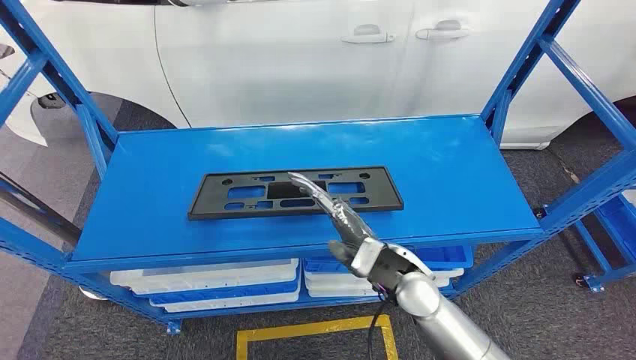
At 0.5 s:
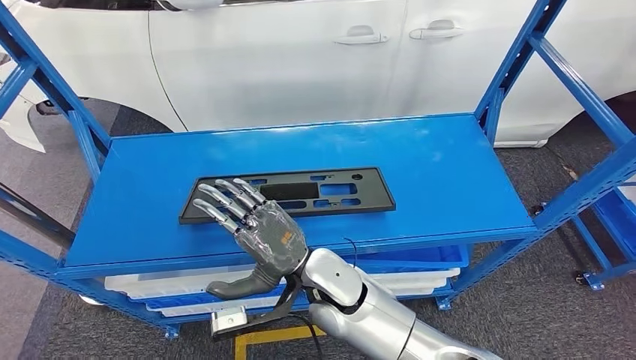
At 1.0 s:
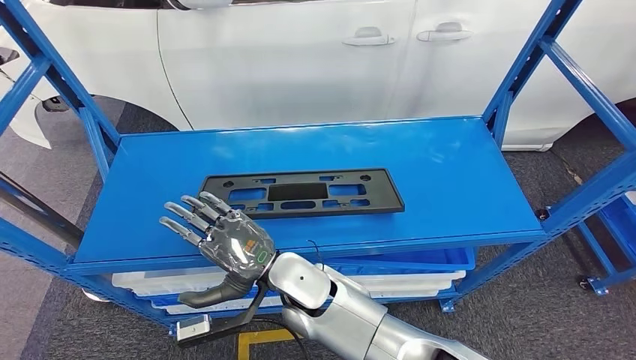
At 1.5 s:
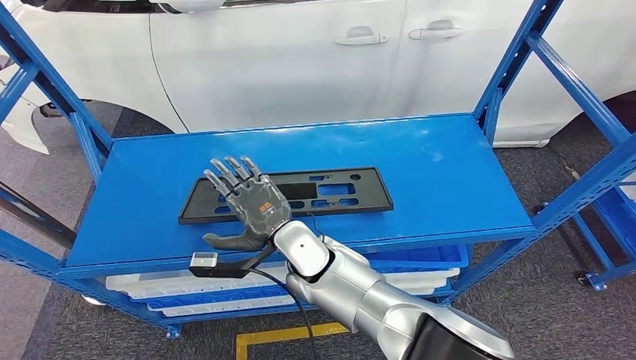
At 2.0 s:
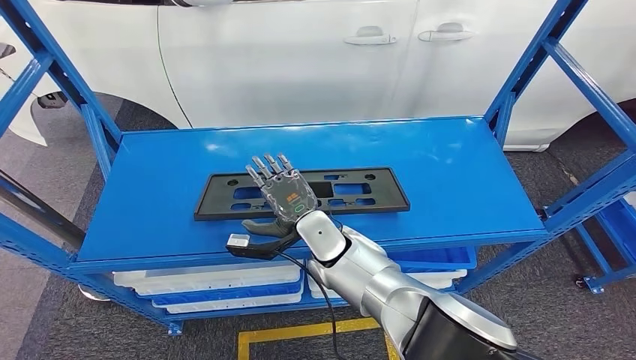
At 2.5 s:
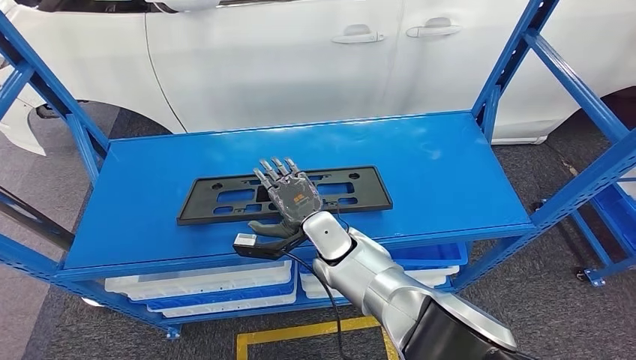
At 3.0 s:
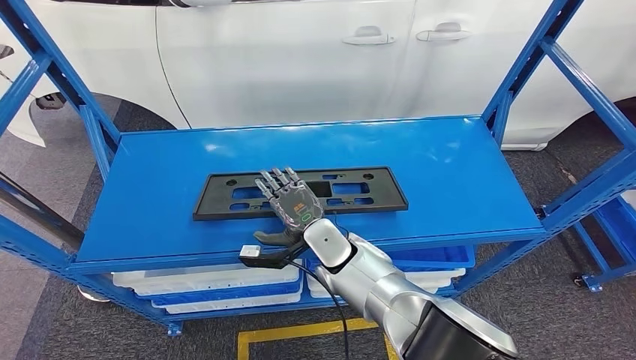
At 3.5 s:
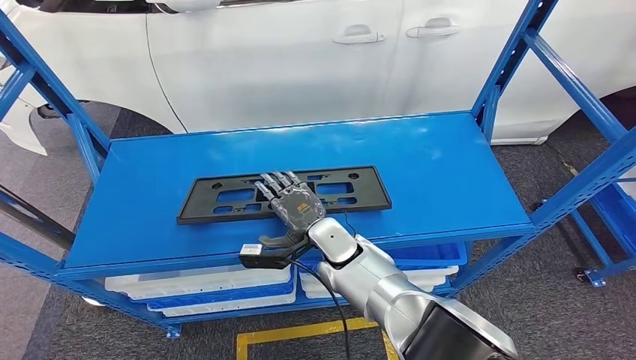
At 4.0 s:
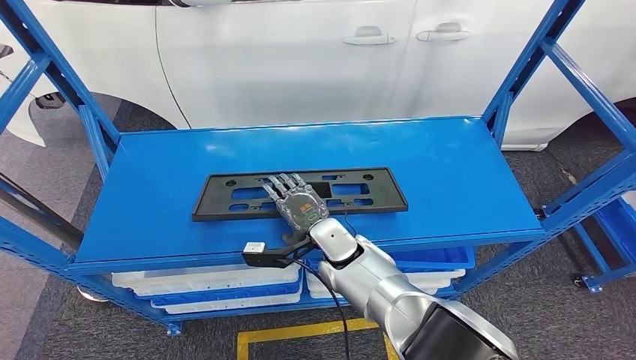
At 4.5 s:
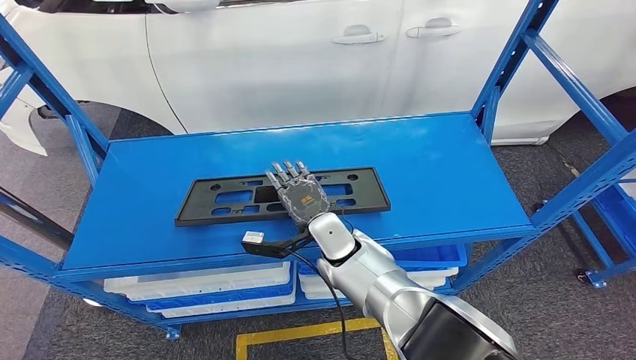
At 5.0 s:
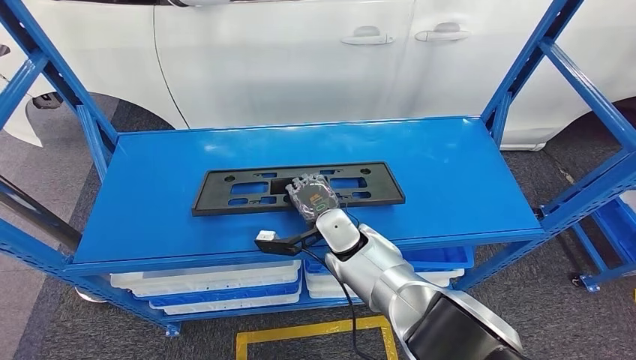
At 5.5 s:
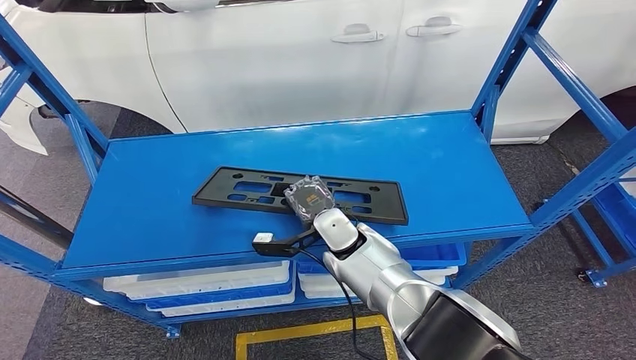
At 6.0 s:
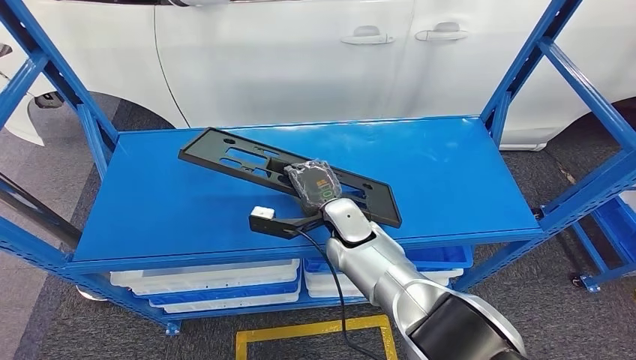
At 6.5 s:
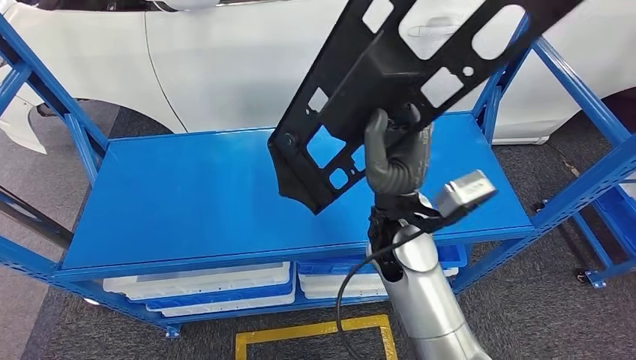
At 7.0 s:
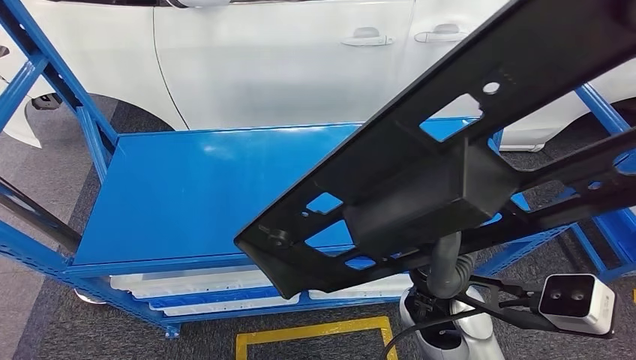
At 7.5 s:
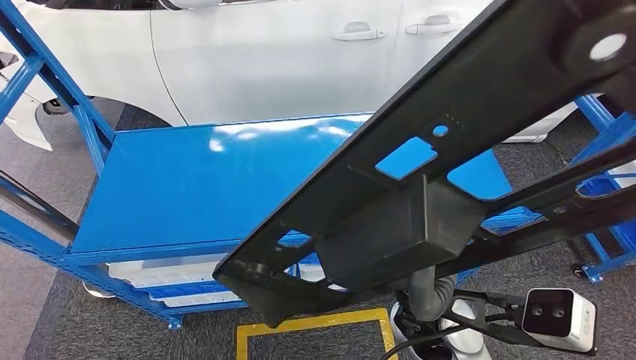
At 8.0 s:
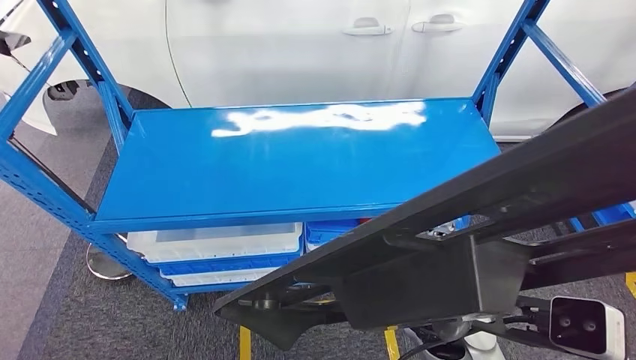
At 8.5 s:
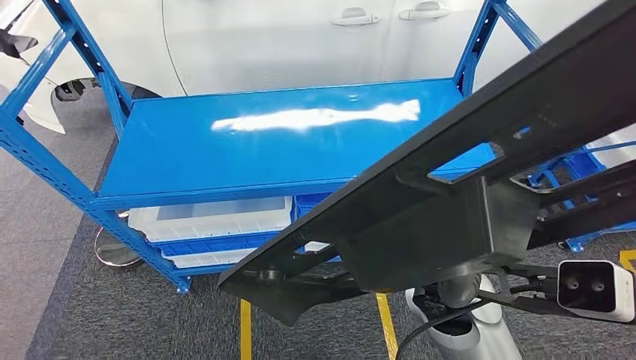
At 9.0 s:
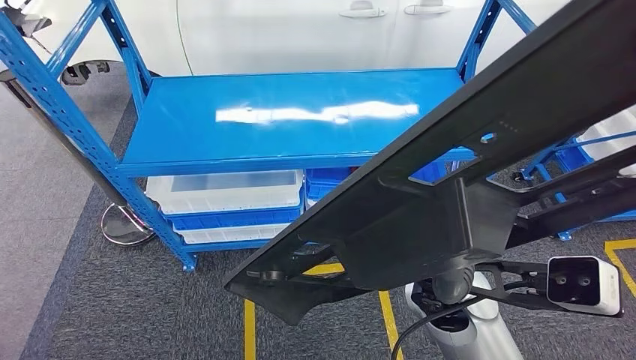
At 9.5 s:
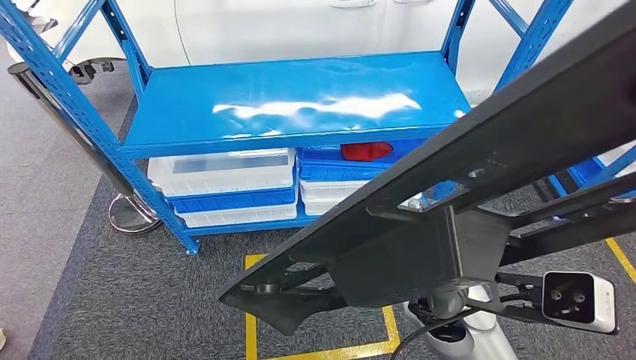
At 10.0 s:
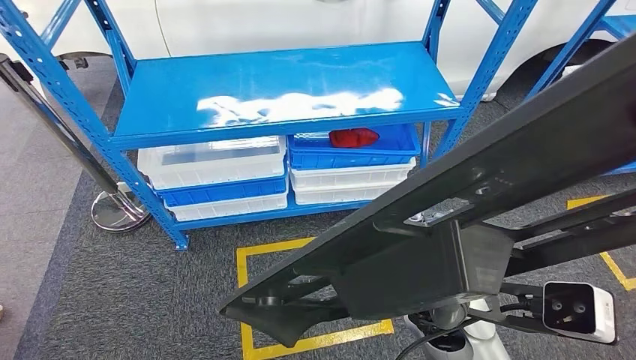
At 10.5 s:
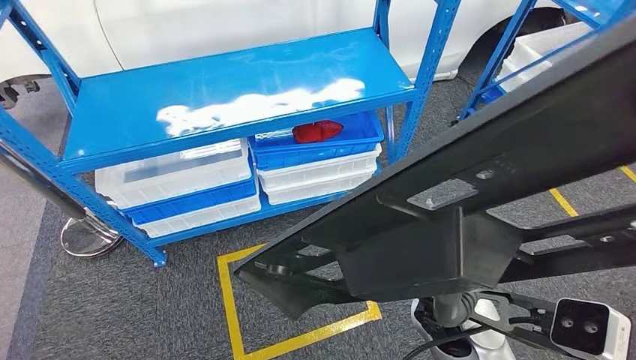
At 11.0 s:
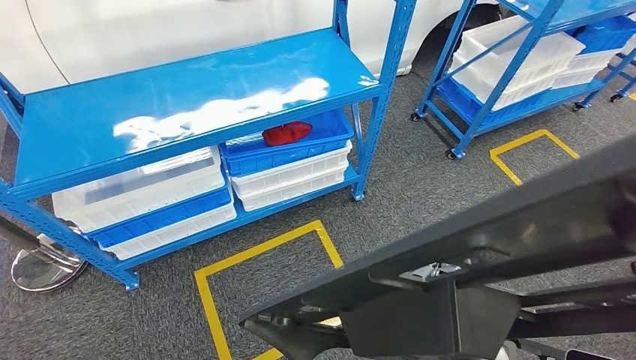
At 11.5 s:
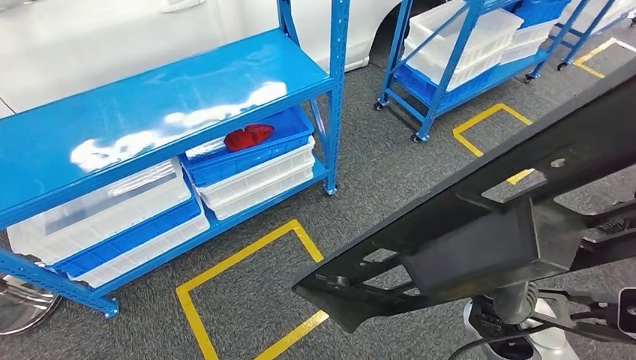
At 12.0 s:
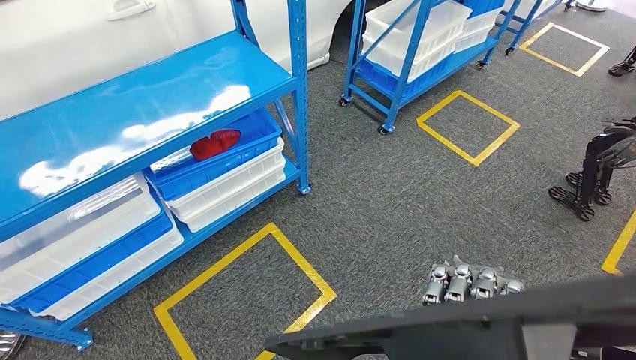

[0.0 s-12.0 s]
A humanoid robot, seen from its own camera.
Step, 0.0 to 7.5 s: Pick up the small parts from the shelf.
2.0 to 6.0 s: There are only small adjustments of the hands.

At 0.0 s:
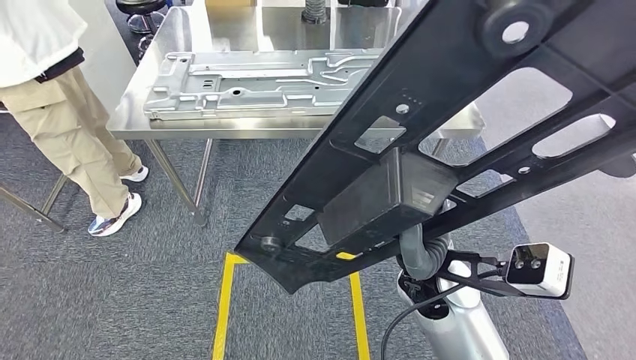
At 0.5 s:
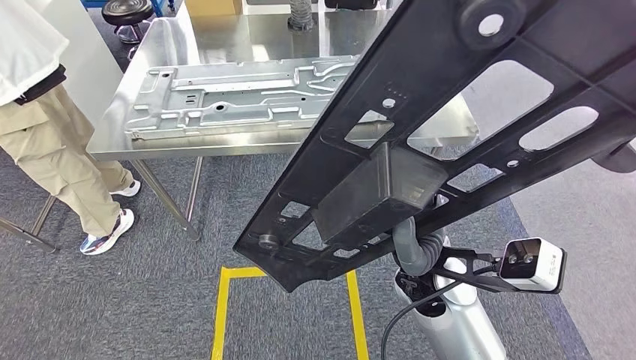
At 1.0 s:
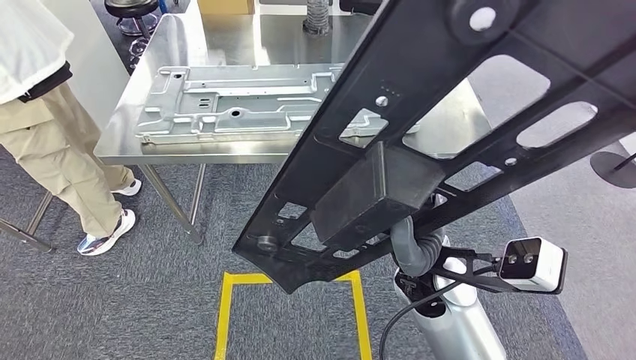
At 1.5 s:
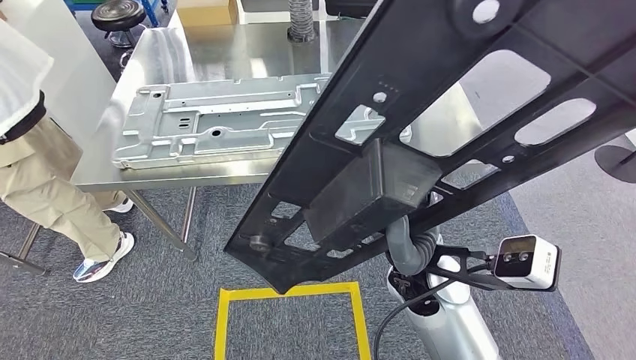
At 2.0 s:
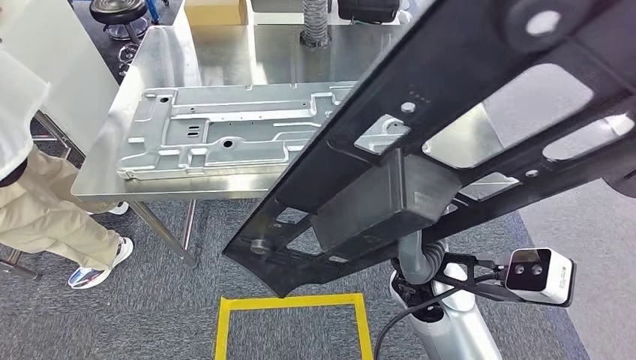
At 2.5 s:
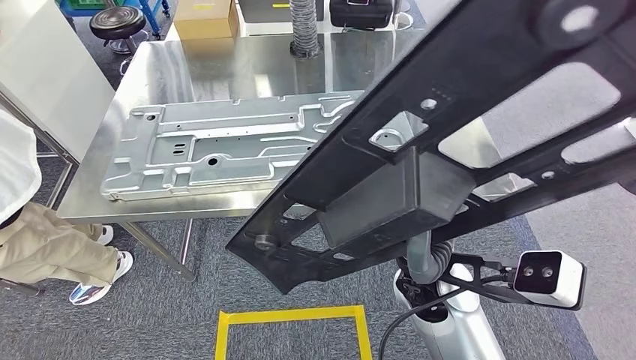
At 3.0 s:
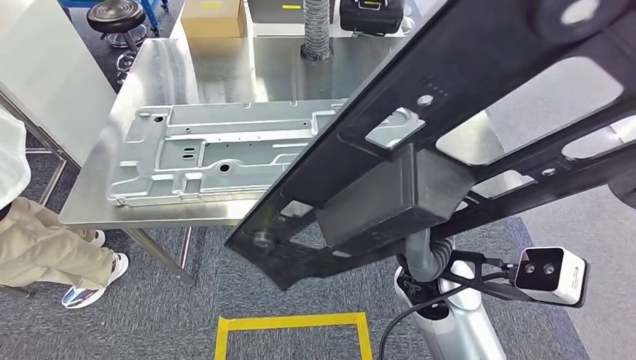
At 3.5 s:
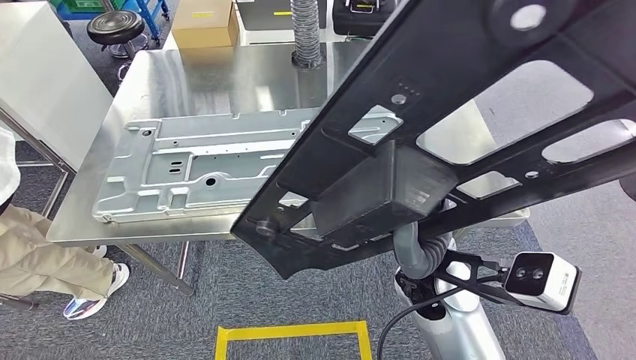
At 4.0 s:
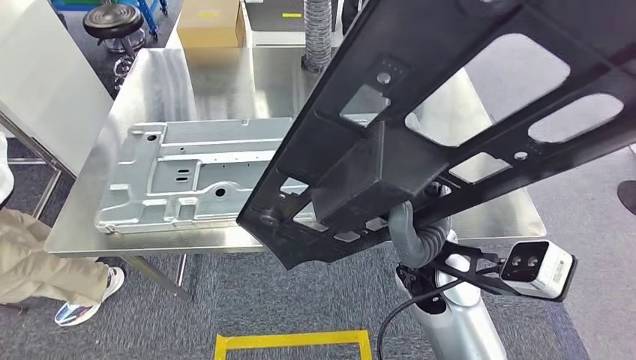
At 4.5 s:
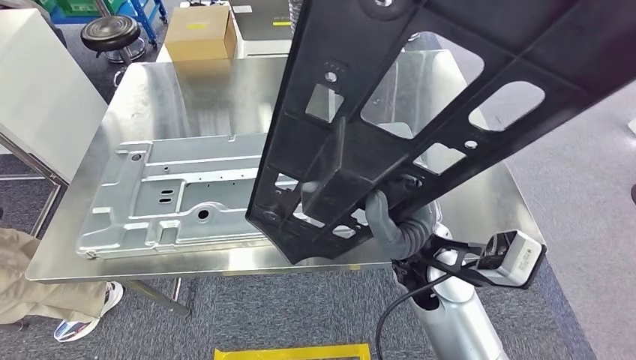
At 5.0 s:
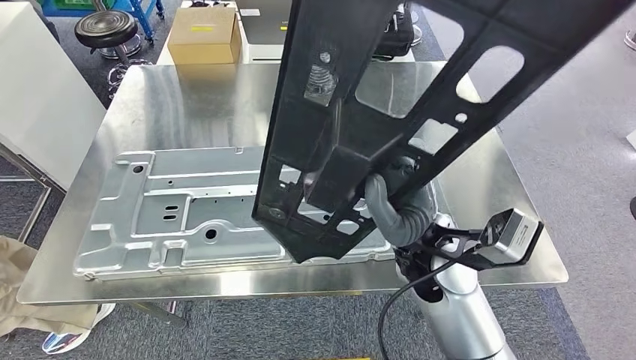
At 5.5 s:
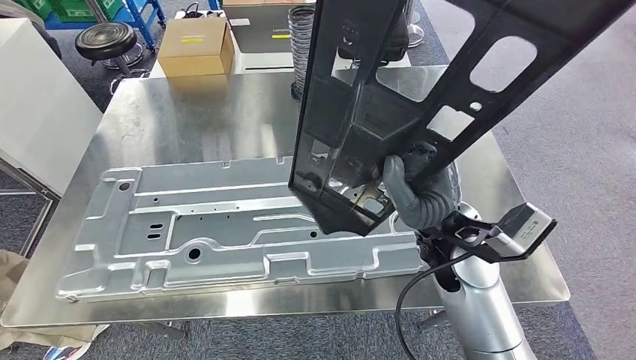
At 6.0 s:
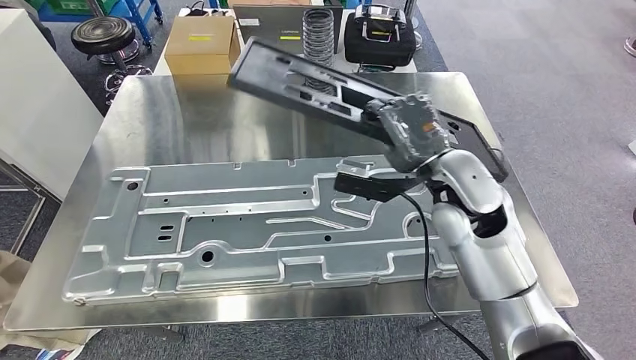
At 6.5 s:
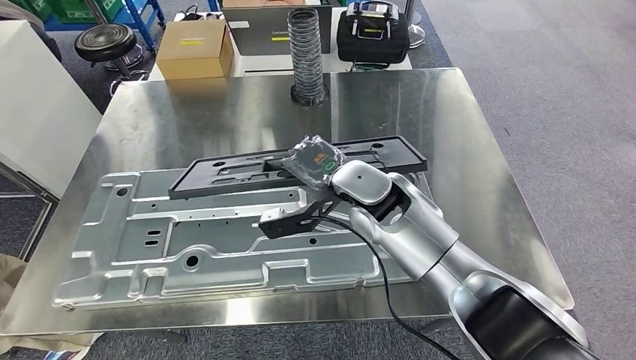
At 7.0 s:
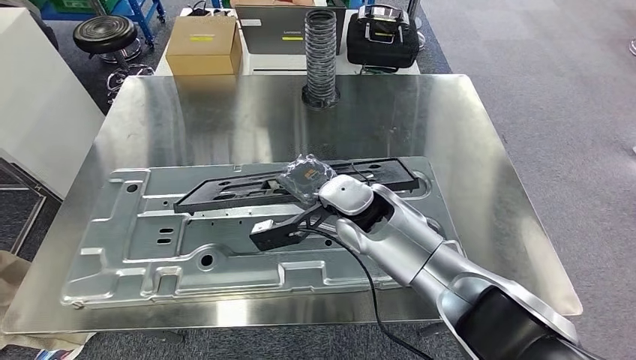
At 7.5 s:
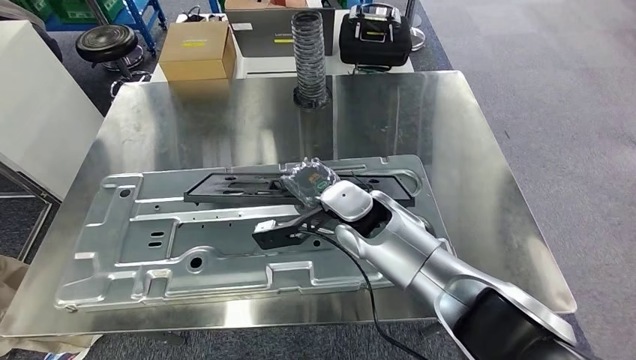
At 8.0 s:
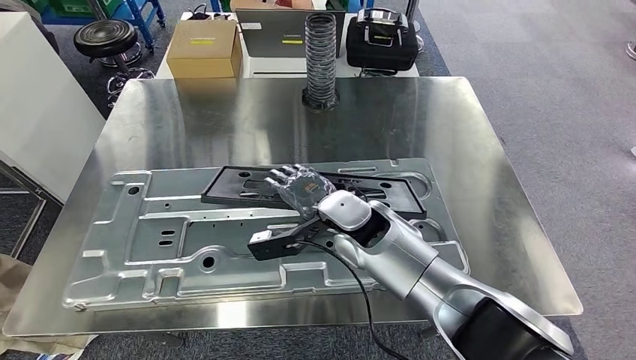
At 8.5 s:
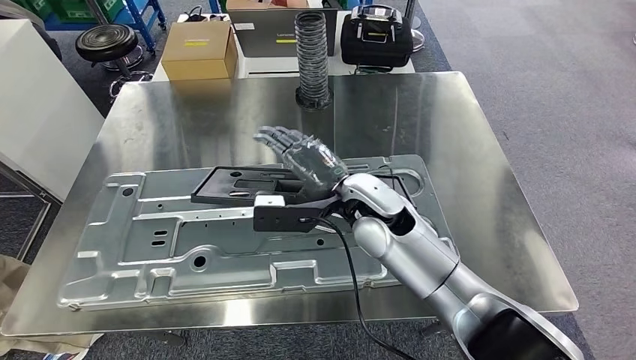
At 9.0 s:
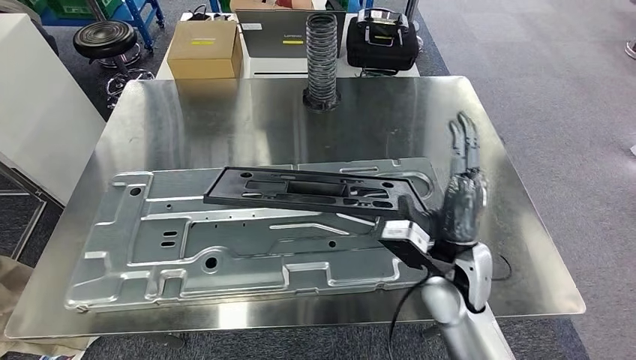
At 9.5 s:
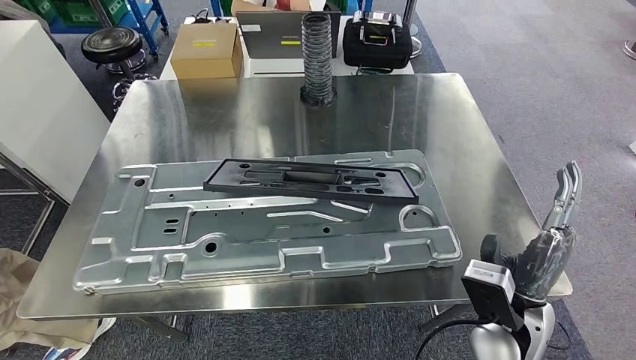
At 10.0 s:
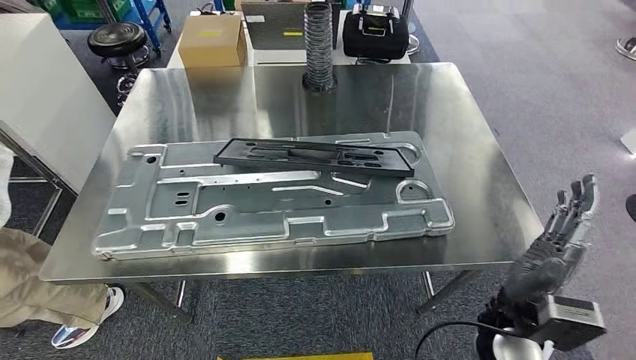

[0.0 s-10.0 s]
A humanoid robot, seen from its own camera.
Step, 0.0 to 3.0 s: Move the small parts to the workbench.
Step, 3.5 to 9.5 s: Insert the small parts into the corresponding slots on the workbench.
